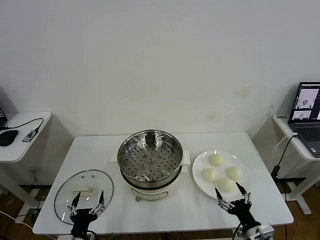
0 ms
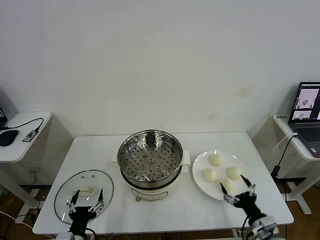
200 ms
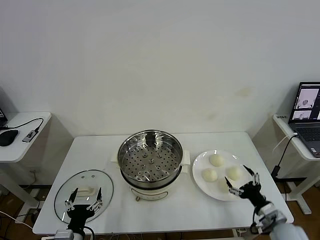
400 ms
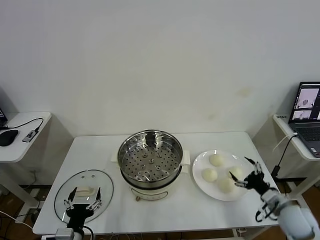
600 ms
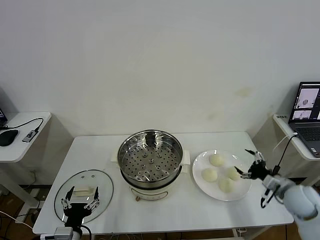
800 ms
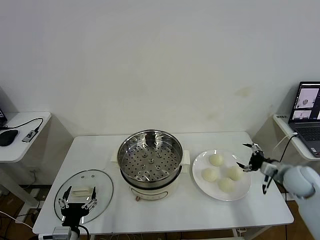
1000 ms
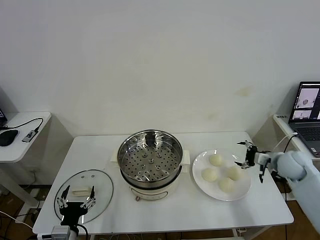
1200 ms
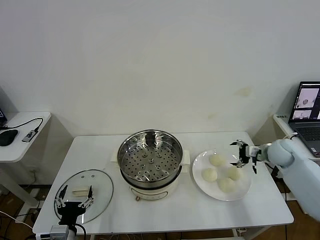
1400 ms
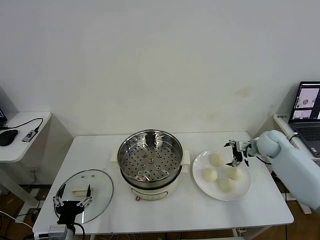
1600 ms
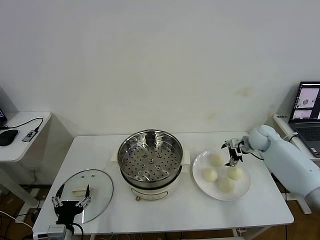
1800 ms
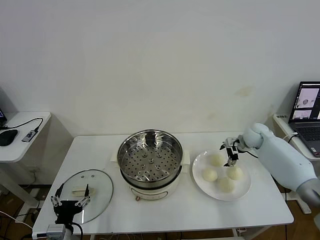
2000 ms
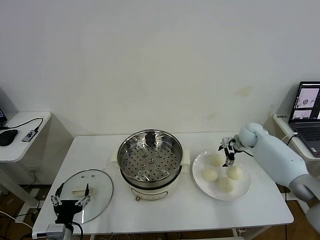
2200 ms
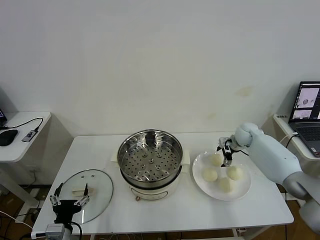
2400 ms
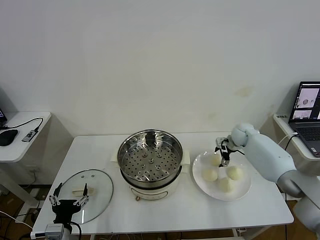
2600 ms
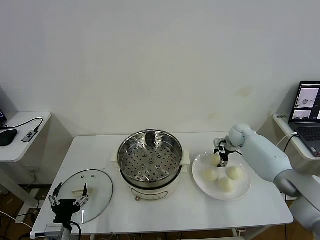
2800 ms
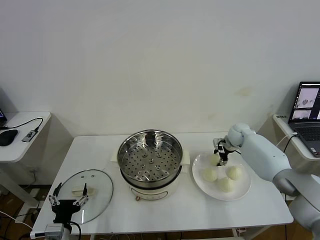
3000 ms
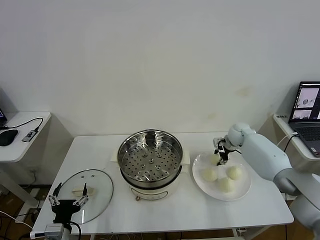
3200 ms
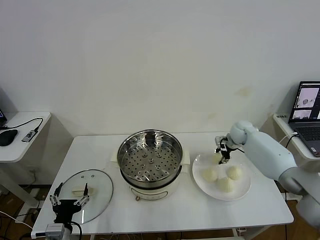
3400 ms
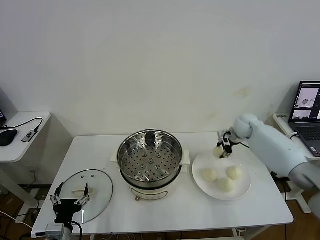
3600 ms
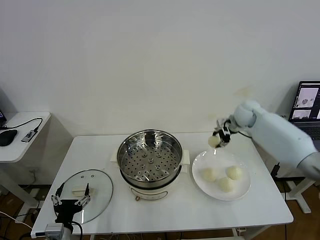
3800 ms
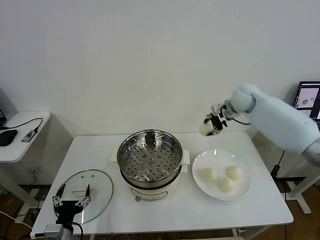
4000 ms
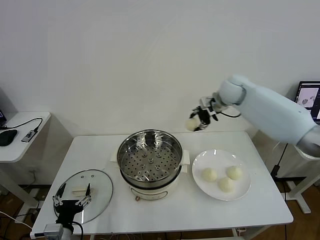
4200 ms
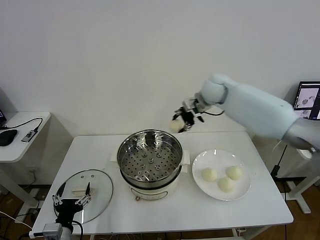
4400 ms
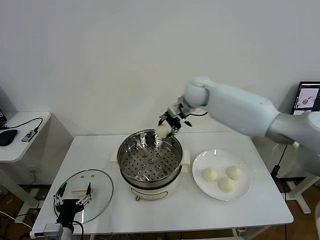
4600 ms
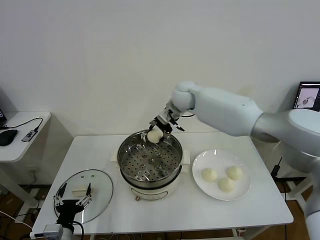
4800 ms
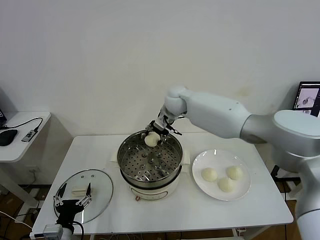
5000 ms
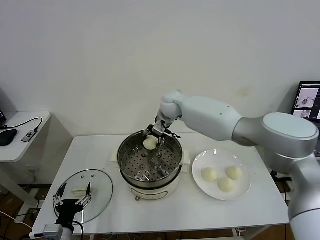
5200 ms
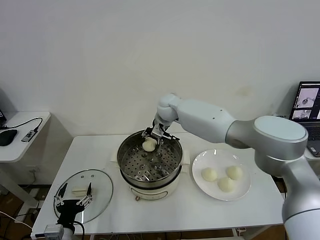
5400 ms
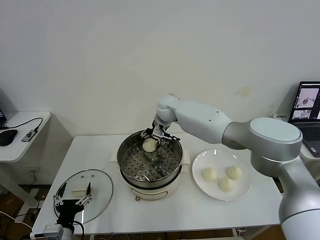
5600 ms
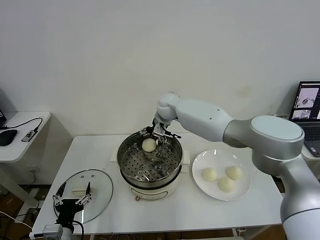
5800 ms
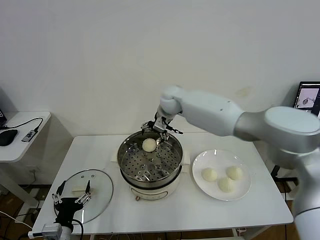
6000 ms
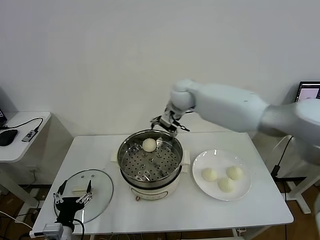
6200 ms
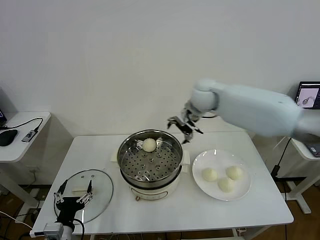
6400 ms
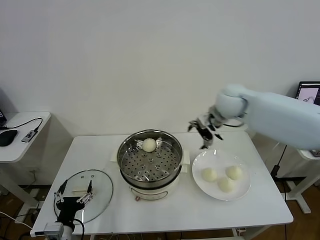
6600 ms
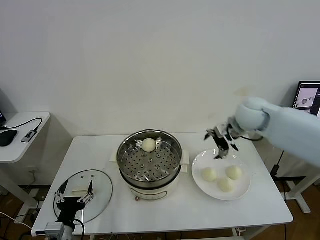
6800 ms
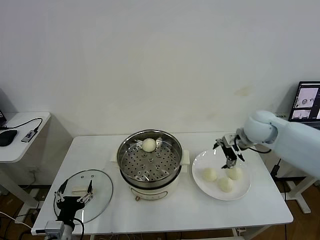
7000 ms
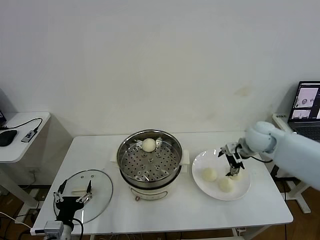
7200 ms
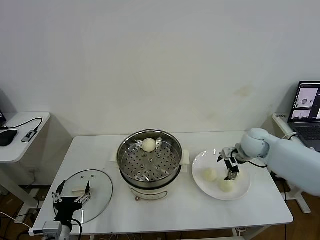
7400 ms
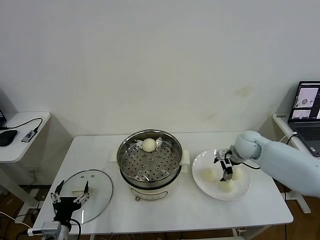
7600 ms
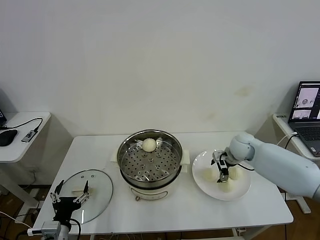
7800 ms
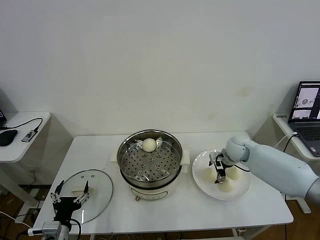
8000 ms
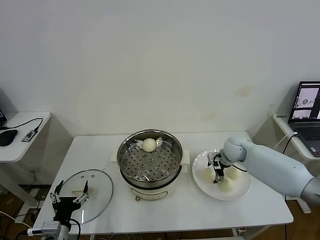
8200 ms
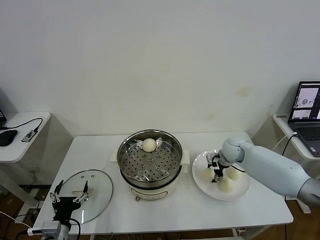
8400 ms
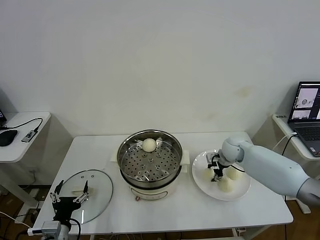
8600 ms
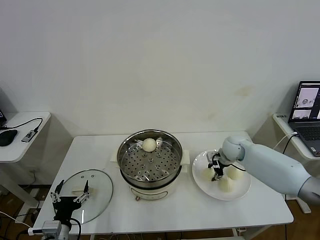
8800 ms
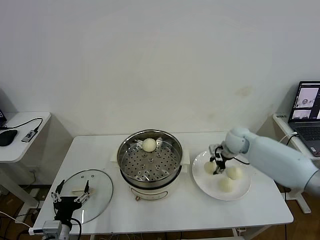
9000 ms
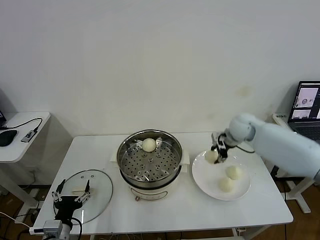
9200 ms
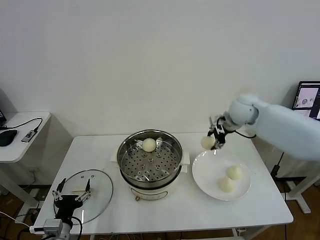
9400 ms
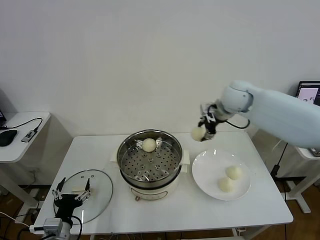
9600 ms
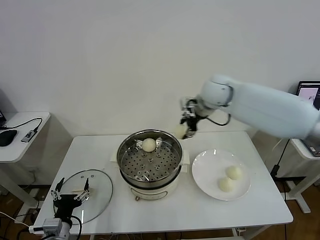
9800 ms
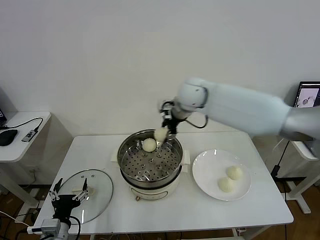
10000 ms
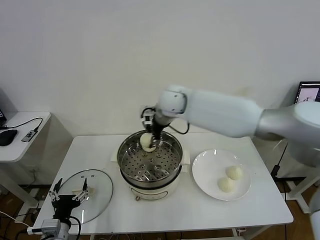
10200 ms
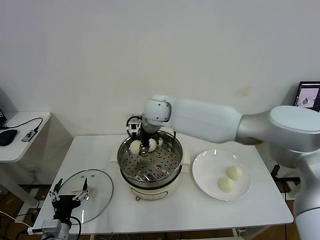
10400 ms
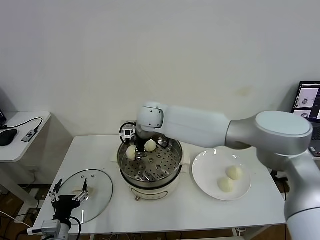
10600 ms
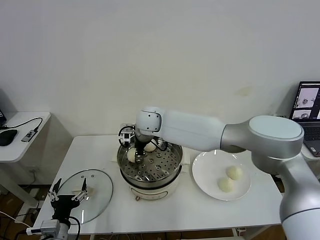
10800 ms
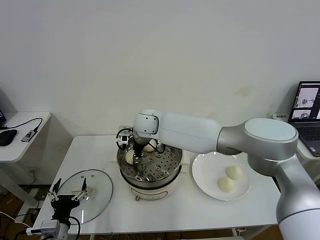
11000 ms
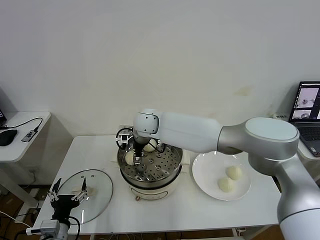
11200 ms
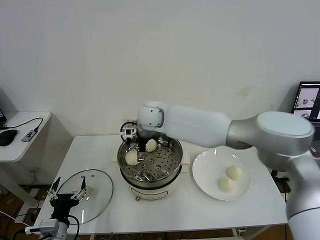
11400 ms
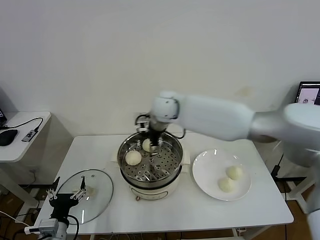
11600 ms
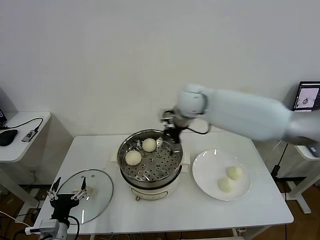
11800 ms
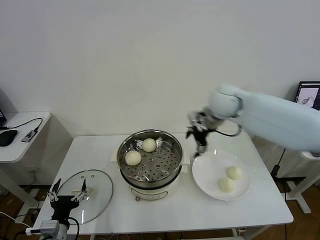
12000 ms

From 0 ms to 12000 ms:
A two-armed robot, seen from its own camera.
Task of the whole recording: take steamed baozi put them in steamer then cover it.
Step, from 0 ms to 3000 ms: Grasp the baozi in the plate with right gripper.
Step, from 3200 ms to 5800 ms: Place the baozi on the steamer with right gripper.
Step, from 6000 ms to 8800 ms: Grasp the baozi in the plate with right gripper.
Step, from 9000 ms to 11400 ms: Place the baozi on the steamer with right gripper.
From 1600 ms to 3000 ms: The right gripper travels forward and to the left by approximately 10 cm, and closes up.
From 3000 ms to 4400 ms: The right gripper heads upward and to the left, covering some 30 cm.
From 4400 ms to 6000 ms: The right gripper heads to the left, covering approximately 10 cm, and opens.
From 6000 ms to 7600 ms: The right gripper moves to the right and downward, roughly 30 cm.
From 7600 ms to 9000 ms: The right gripper closes up.
From 9000 ms to 10400 ms: The right gripper goes about 30 cm to the left.
From 10400 ms to 12000 ms: The right gripper heads to the right, covering roughly 25 cm, and opens up.

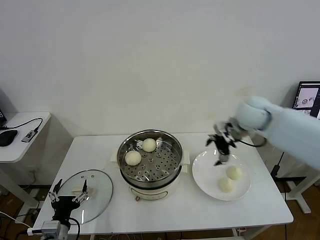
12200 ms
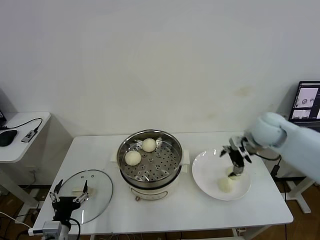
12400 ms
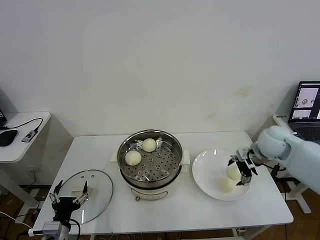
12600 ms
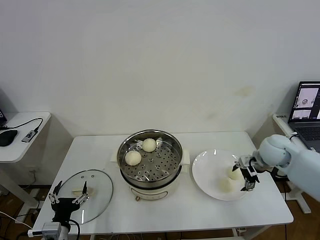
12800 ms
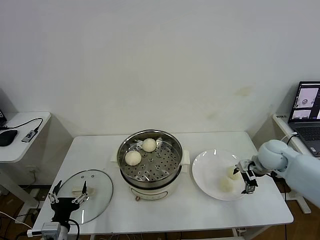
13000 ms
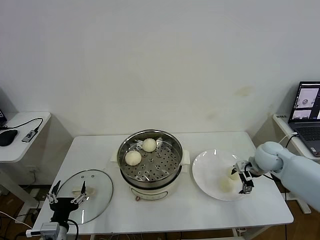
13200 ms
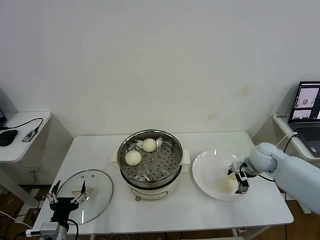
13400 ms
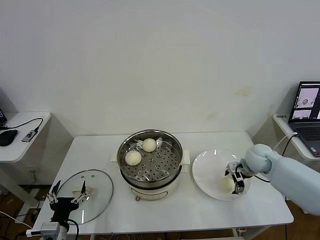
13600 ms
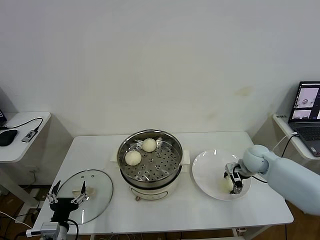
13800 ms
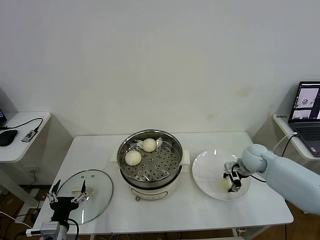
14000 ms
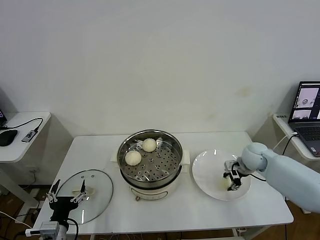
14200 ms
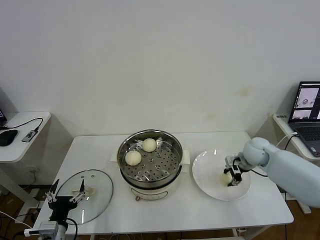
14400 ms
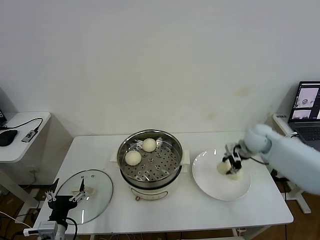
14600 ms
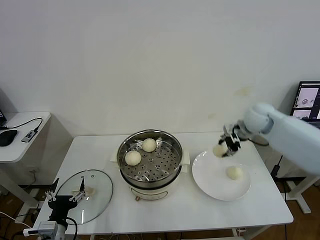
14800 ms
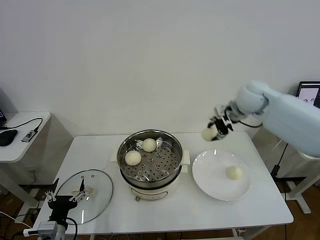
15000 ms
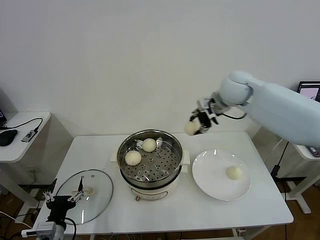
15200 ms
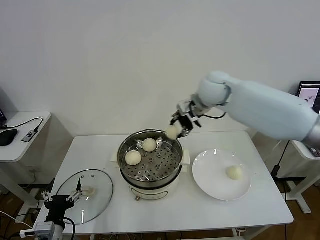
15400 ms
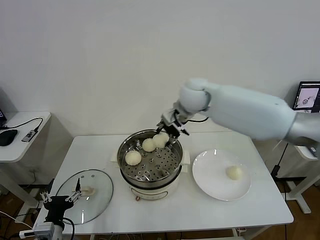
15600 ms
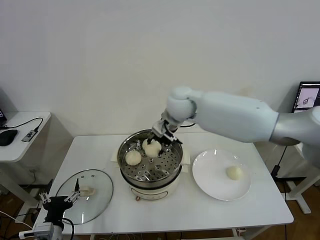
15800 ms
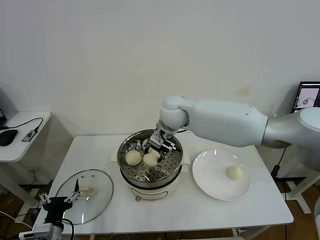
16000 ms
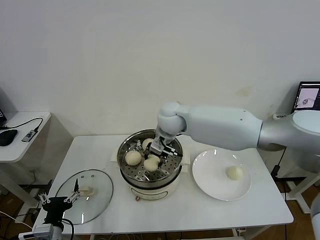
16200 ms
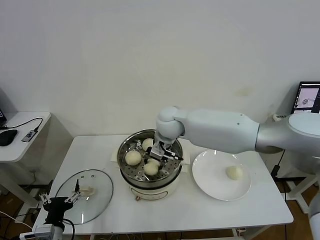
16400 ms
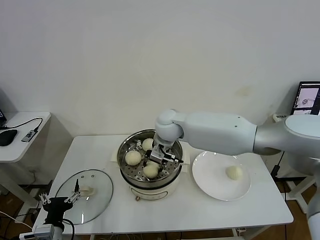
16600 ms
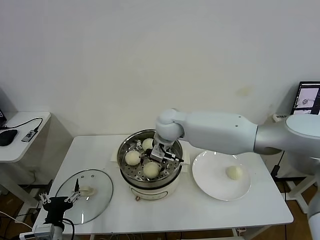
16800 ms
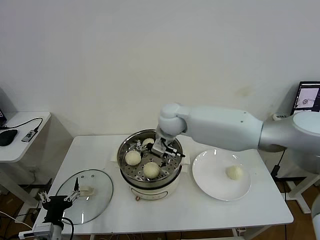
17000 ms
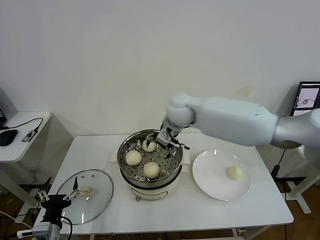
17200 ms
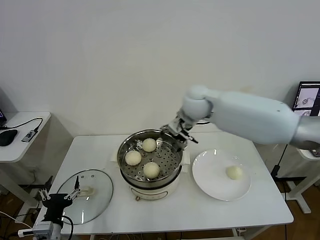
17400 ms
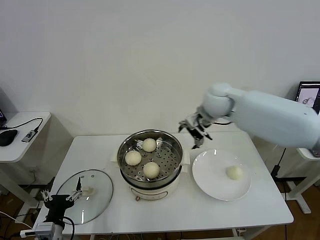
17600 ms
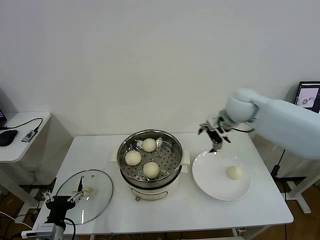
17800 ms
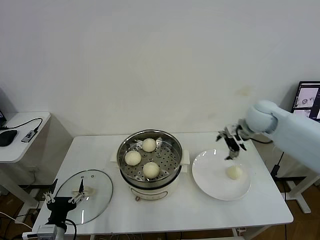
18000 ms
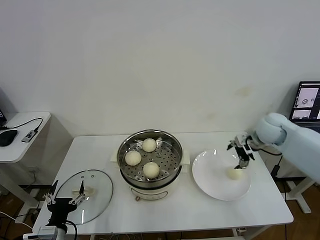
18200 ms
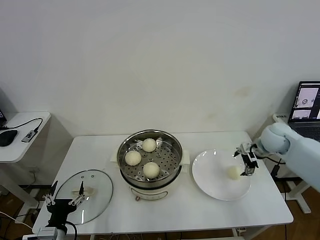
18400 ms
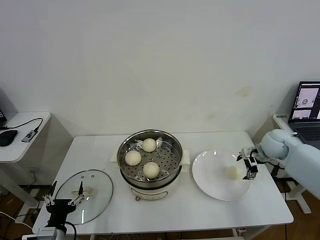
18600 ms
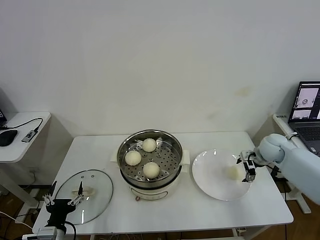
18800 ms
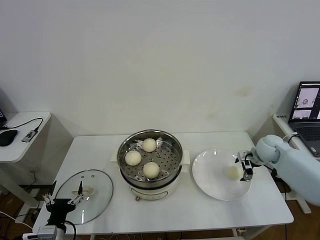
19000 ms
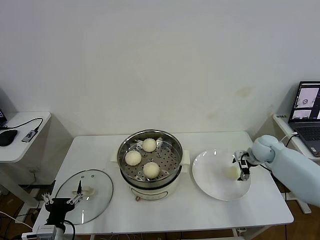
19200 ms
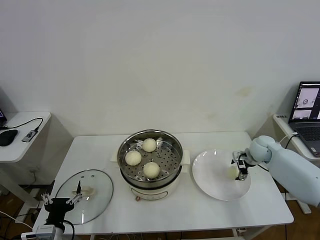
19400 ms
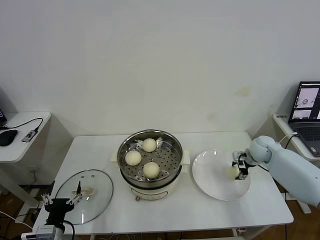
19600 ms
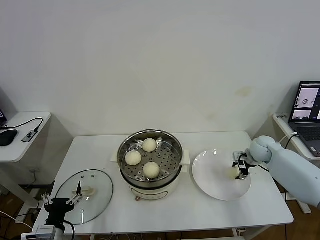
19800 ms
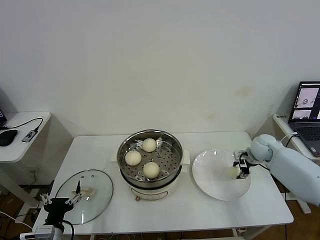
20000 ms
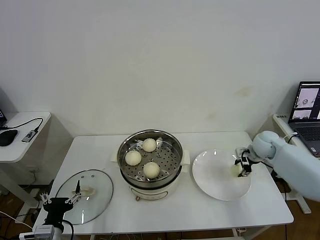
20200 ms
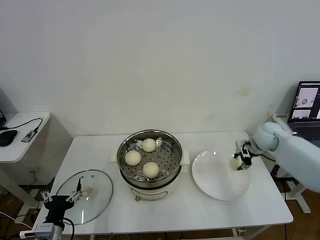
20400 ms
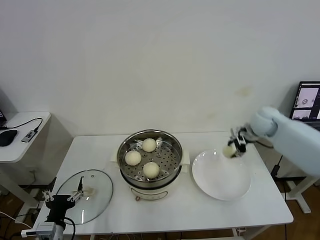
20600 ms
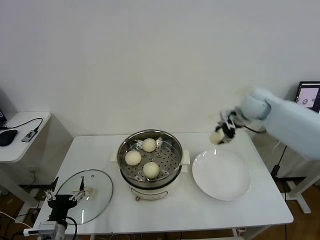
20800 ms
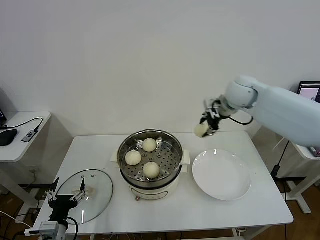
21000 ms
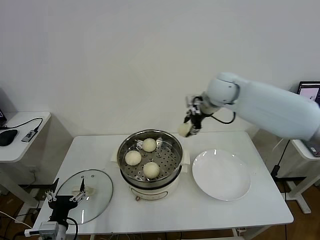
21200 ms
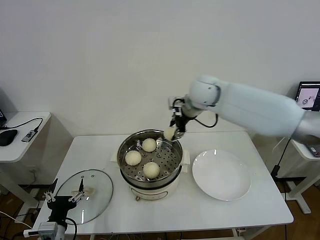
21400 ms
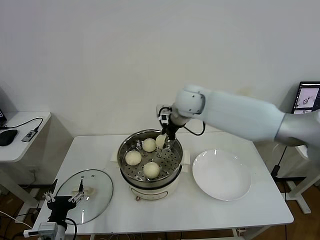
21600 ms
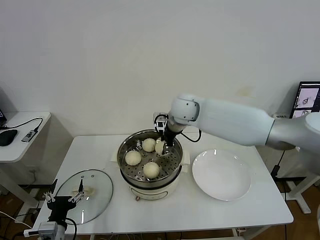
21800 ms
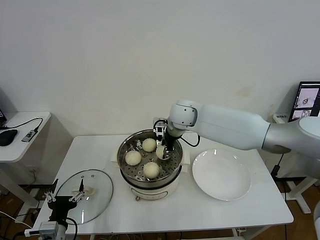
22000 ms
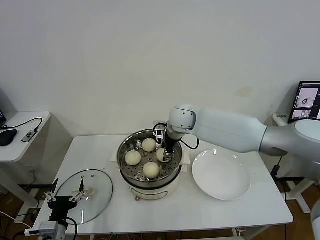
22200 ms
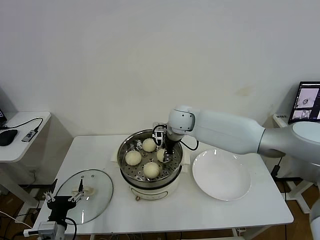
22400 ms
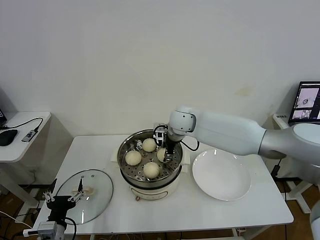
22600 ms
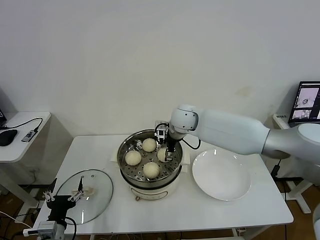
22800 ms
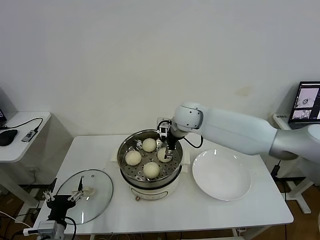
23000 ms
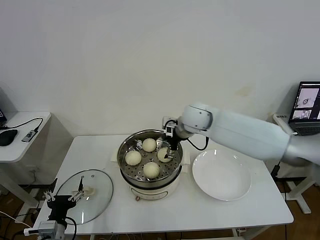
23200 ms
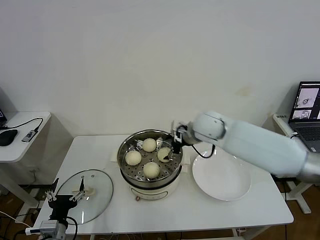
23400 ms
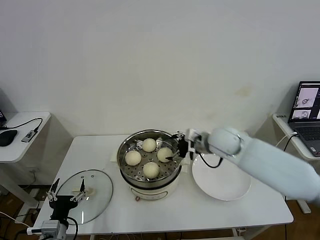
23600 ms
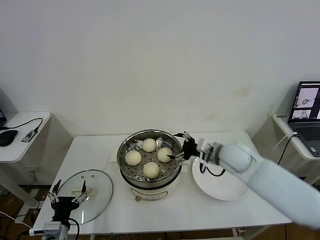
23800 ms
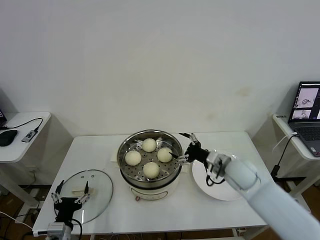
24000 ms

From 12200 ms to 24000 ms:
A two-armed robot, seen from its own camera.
Task of the whole recording: take steamed baozi put them in steamer then cover it.
Step, from 12200 ms to 14400 ms: Grasp the baozi in the plate with right gripper.
Step, from 14600 ms to 16800 ms: Place the baozi on the steamer with right gripper.
Step, from 17200 ms to 20000 ms: Grasp the baozi in the plate with right gripper.
Step, from 20200 ms to 23000 ms: Place the baozi on the steamer with right gripper.
From 12200 ms to 13600 ms: The right gripper shifts some 15 cm downward.
From 13600 ms to 15200 ms: The right gripper heads upward and to the left, covering some 30 cm, and closes up.
From 15200 ms to 16600 ms: The right gripper is displaced to the left and downward by some 20 cm.
From 16600 ms to 18200 ms: The right gripper is displaced to the right by about 35 cm, and opens its fingers.
From 18200 ms to 19600 ms: The right gripper shifts approximately 10 cm downward, and closes its fingers.
From 19600 ms to 21000 ms: The right gripper goes about 25 cm upward and to the left.
From 21000 ms to 22600 ms: The right gripper travels to the left and downward by about 20 cm.
From 22600 ms to 24000 ms: The right gripper goes approximately 25 cm to the right, backward and downward, and opens its fingers.
